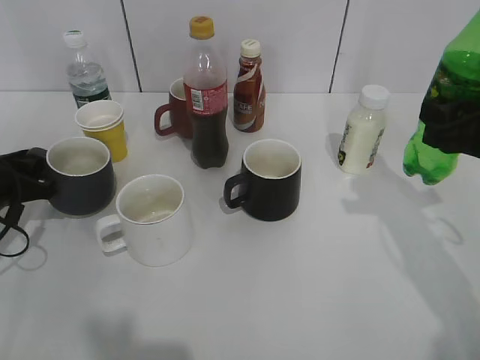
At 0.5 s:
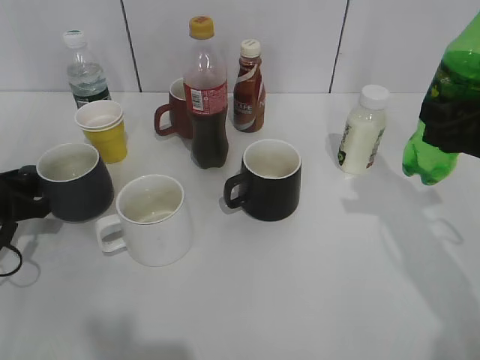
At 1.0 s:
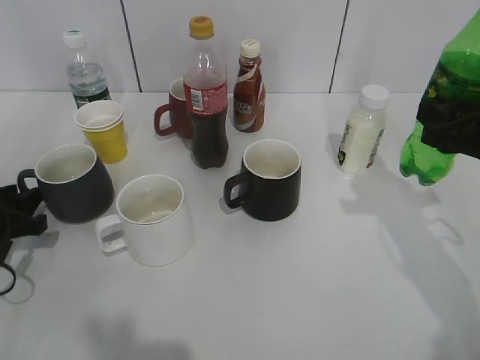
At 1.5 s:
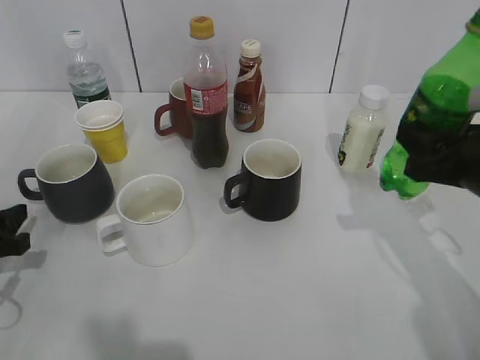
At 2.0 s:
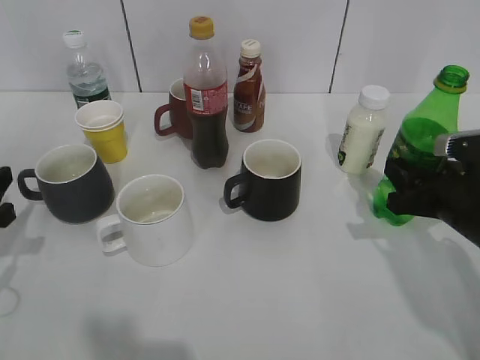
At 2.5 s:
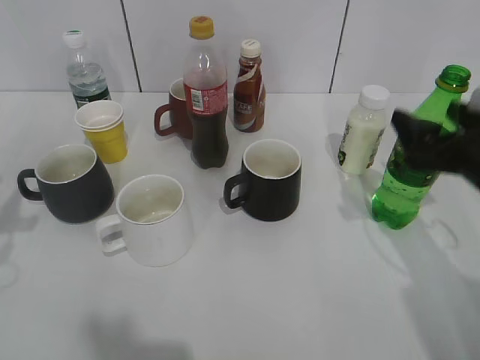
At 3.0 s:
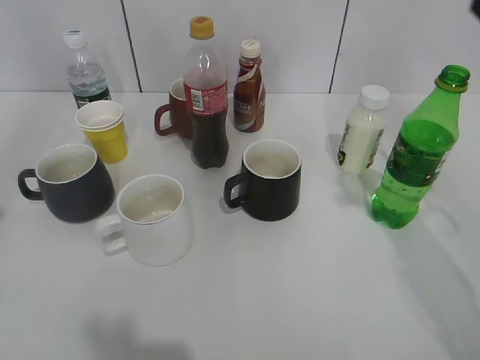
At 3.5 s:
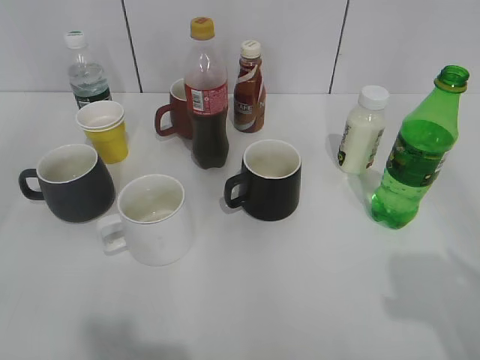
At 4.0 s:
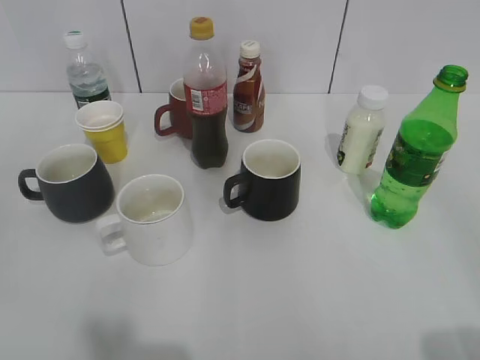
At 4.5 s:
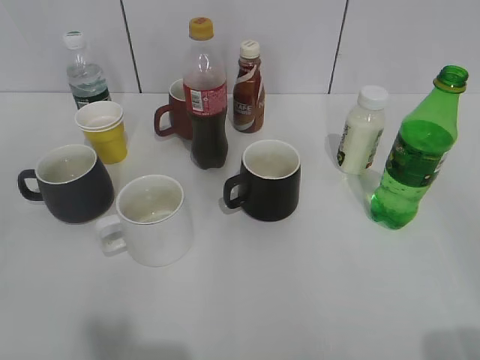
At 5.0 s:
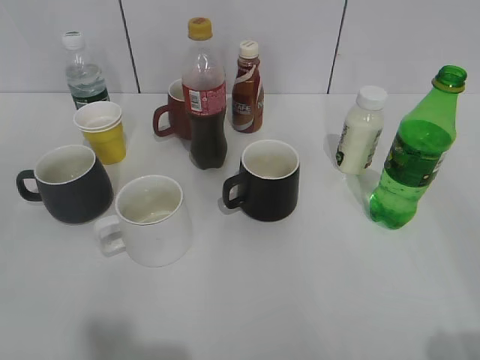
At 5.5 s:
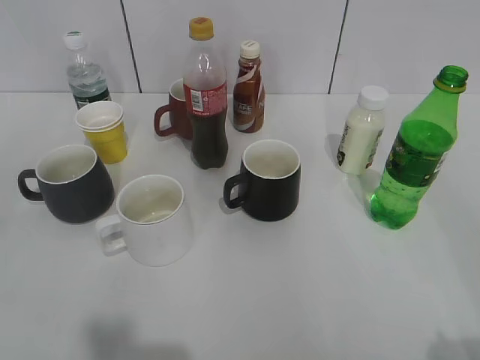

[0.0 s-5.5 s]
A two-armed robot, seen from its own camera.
Step, 1.0 to 2.5 s: Place the sprite bottle on the table with right gripper.
0.0 to 2.0 s: The left gripper shifts some 10 cm backward, and opens up. The right gripper heads downward, covering about 10 cm.
2.0 to 3.5 s: Both grippers travel together upward and backward, about 25 cm. The right gripper opens up.
3.5 to 5.5 s: The left gripper moves backward, roughly 5 cm.
